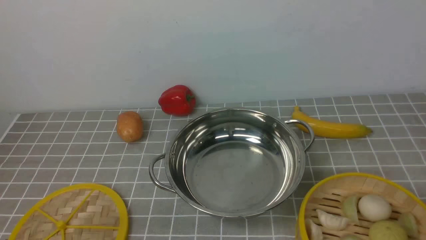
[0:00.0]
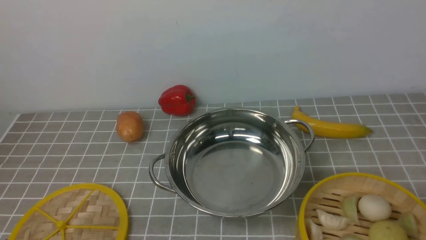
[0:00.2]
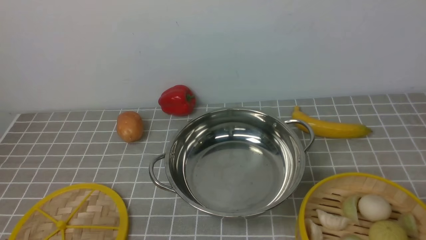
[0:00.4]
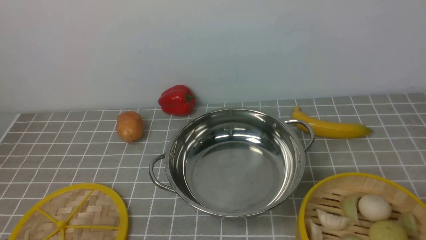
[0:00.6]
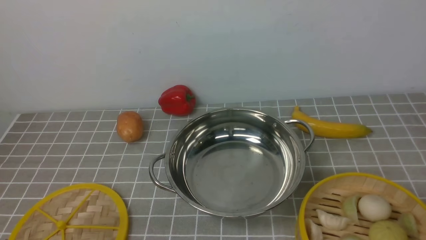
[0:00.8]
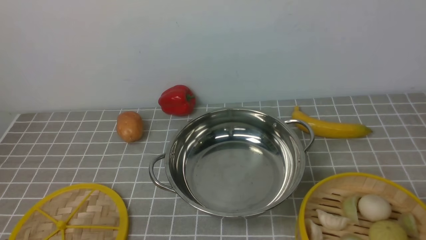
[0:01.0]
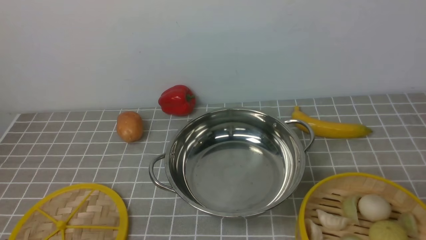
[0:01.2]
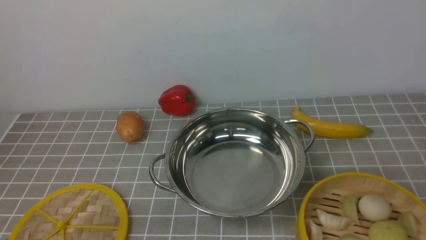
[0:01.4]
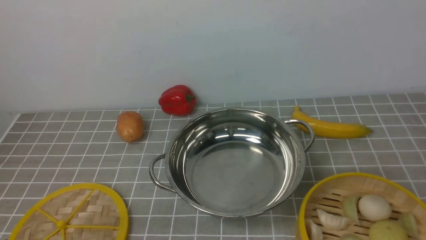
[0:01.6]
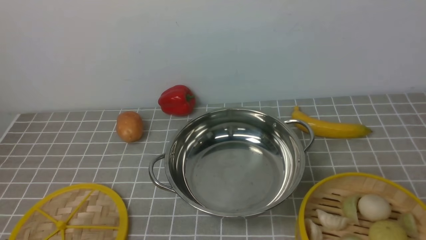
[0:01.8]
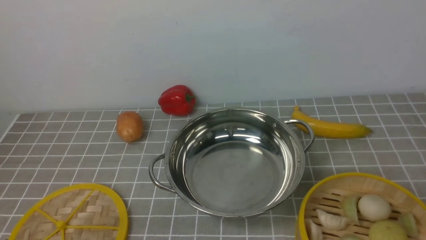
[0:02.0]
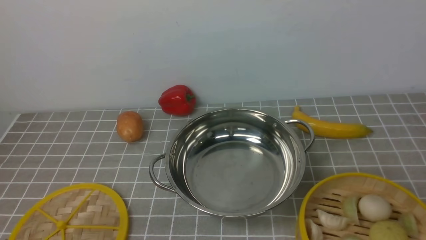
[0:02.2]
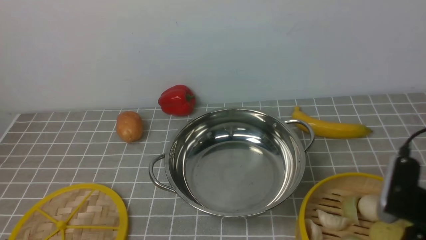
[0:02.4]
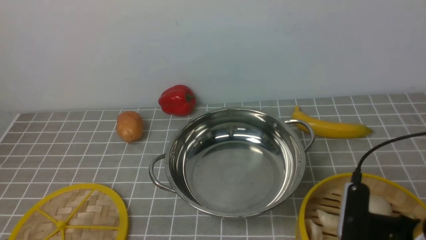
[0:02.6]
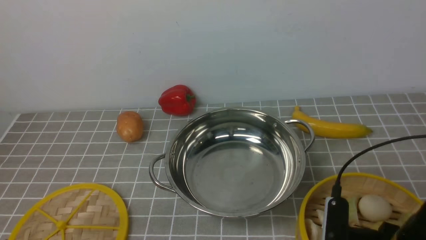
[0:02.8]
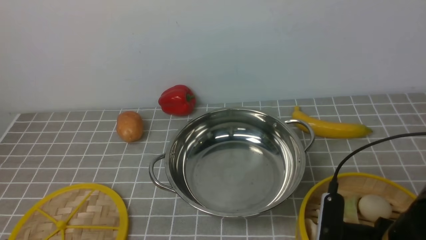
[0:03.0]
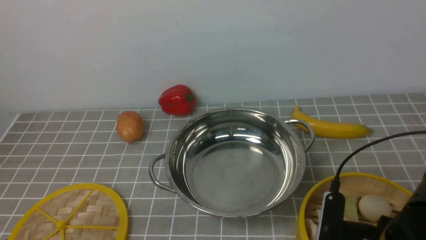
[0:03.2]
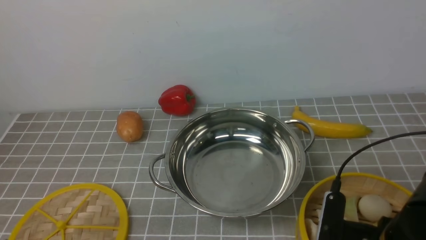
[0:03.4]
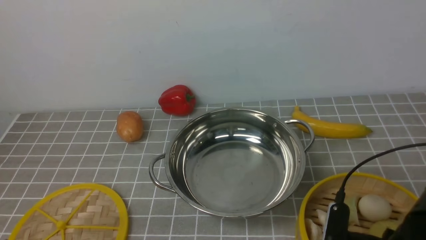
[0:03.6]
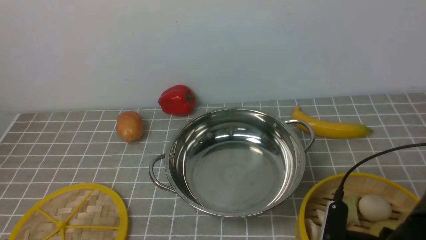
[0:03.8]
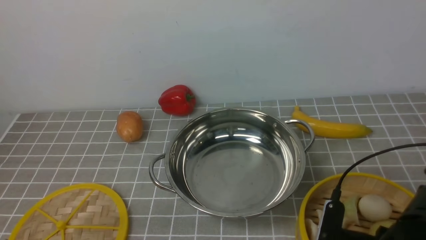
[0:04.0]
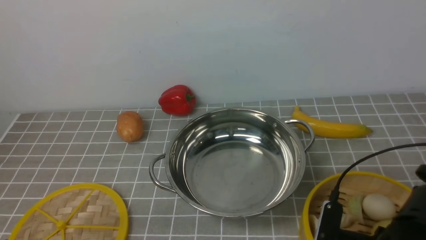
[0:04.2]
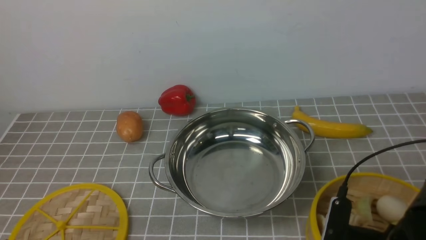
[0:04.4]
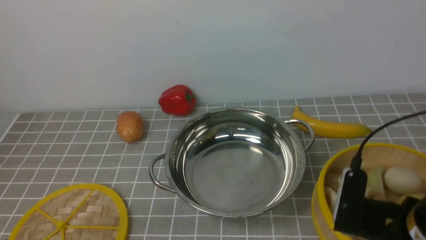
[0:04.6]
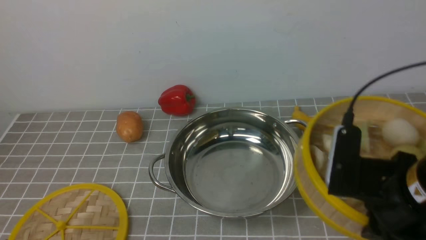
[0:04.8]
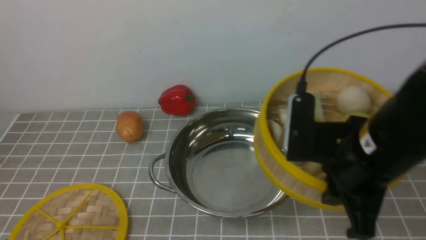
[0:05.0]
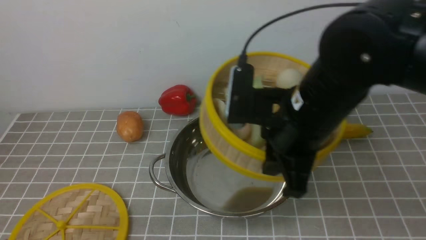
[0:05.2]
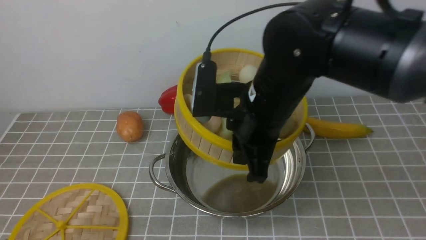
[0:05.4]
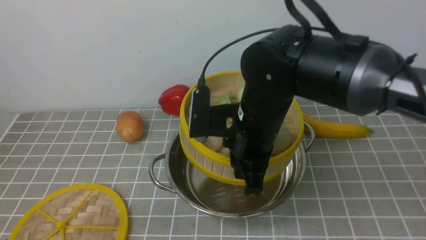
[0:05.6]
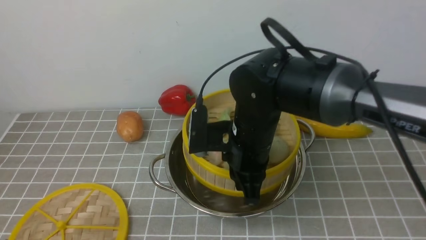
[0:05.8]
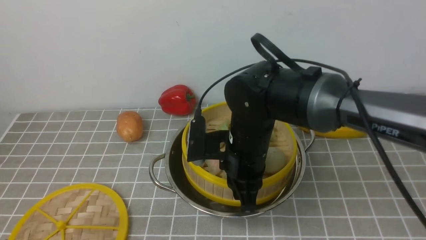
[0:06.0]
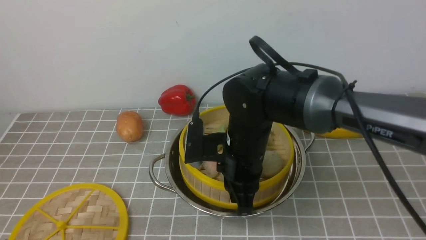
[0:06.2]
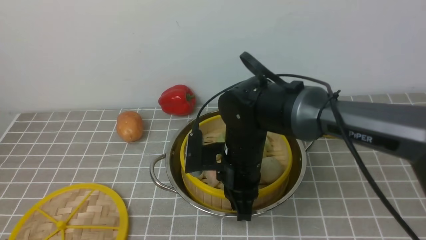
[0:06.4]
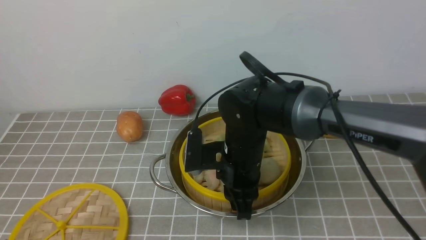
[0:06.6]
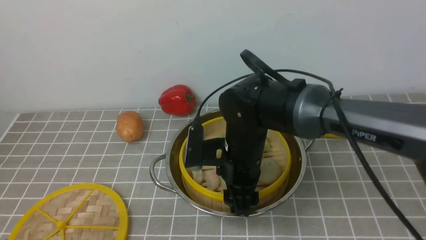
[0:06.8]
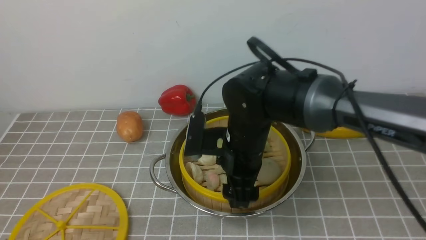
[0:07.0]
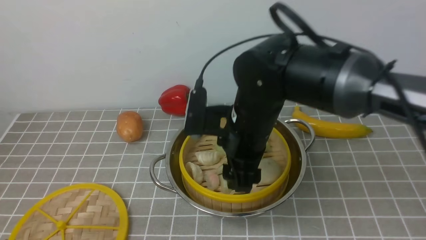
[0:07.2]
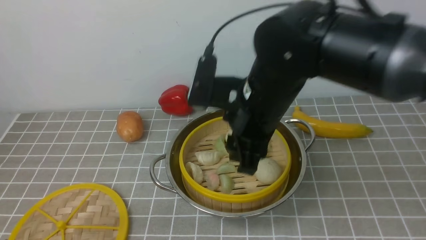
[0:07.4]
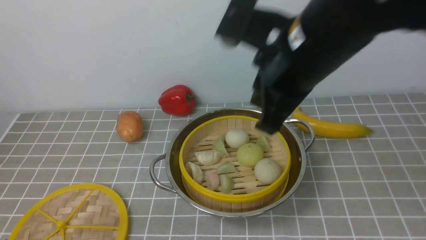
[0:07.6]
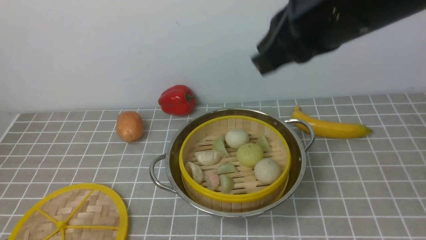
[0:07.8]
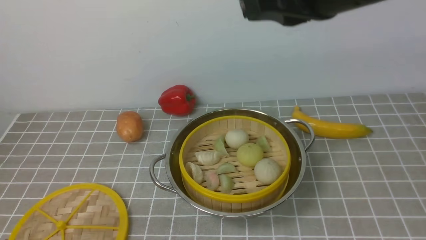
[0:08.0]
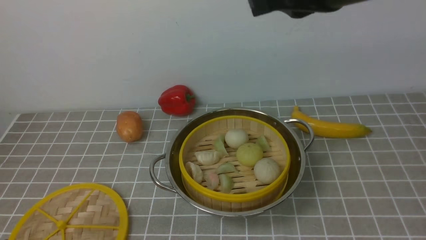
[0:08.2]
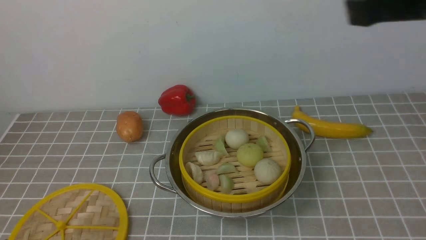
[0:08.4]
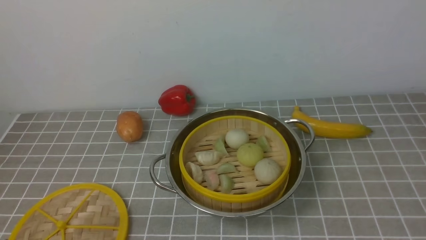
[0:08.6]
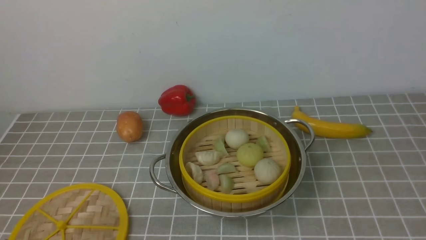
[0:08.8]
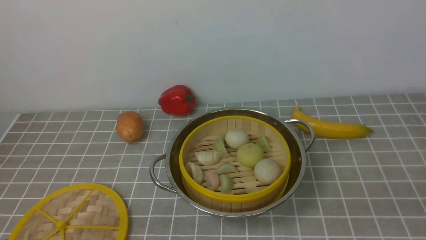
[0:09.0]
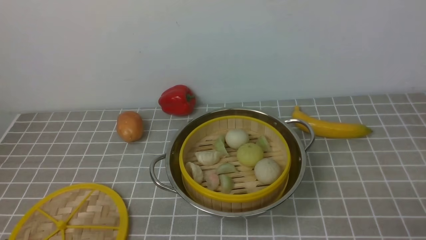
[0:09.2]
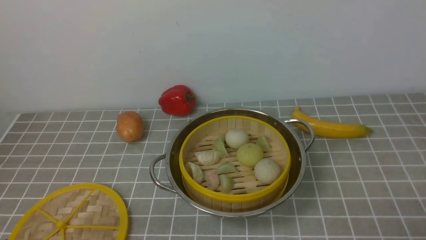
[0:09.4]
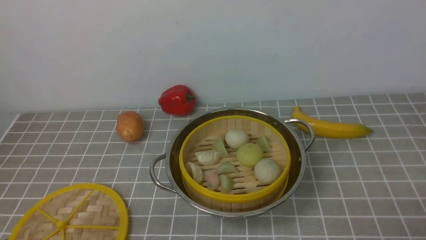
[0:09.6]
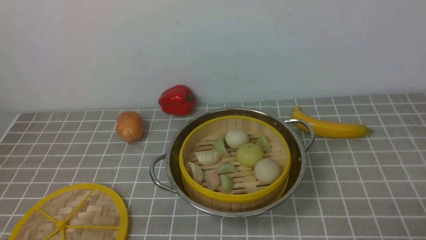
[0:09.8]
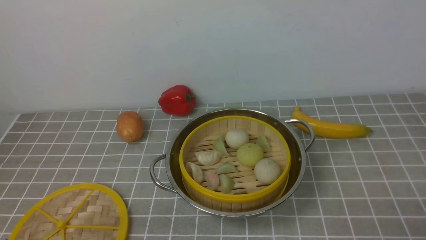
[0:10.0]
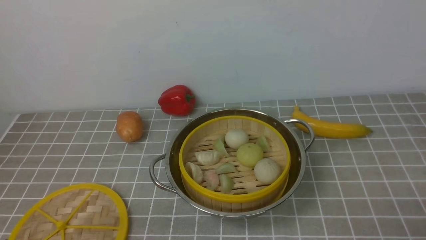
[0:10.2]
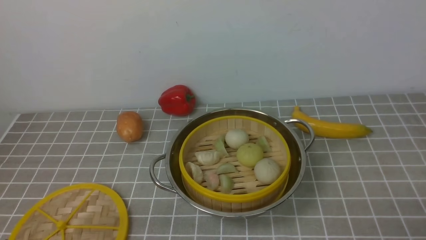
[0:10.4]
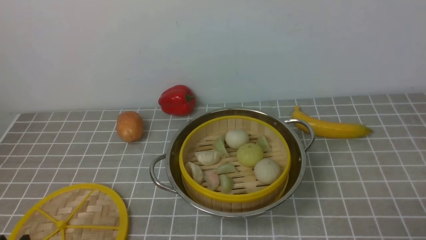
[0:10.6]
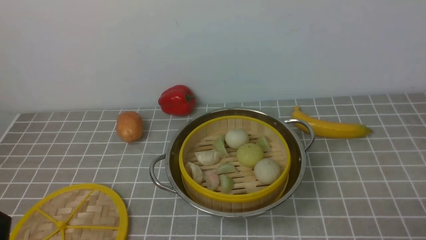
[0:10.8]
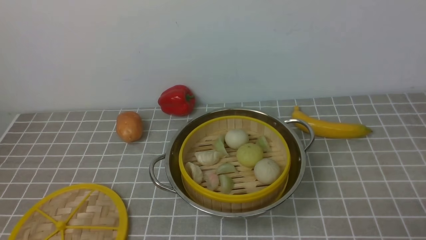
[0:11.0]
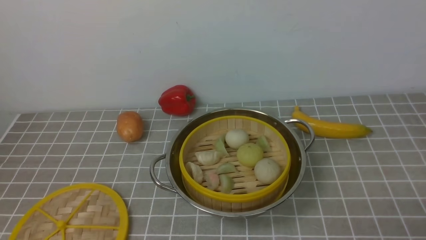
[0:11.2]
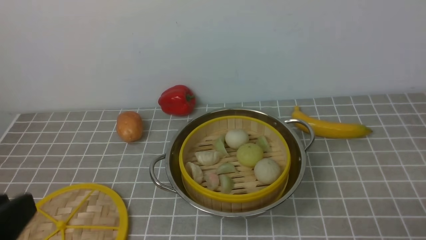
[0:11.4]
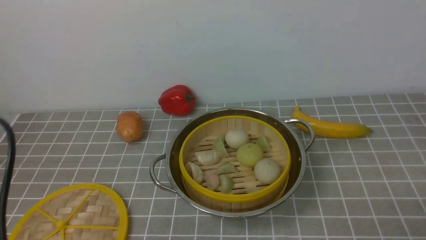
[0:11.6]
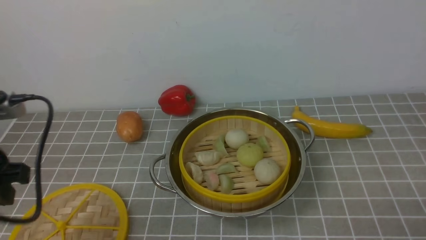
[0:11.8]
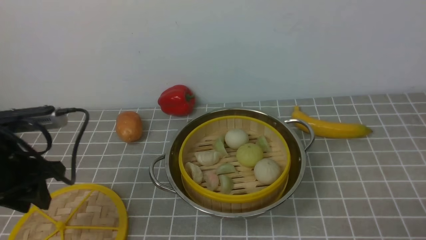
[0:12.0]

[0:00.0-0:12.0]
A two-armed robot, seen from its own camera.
Task of the whole recording: place the steamer in the pot on the grey tablecloth, and put the lid on the steamer.
Step, 0:00.0 to 0:04.4: use the right arm to lift the steamer closest to it.
Step, 0:04.6 to 0:07.0: use the right arm to put the steamer into the iron steamer pot in the middle.
0:01.6 to 0:03.0: The right gripper shifts some 20 cm forward, to the left and downward.
0:03.0 to 0:04.4: The right gripper closes.
0:04.4 to 0:06.0: The right gripper moves to the left and forward, some 20 cm.
0:06.0 to 0:07.6: The right gripper heads upward, covering some 15 cm, and opens, then closes again.
0:07.6 to 0:09.0: The right gripper goes roughly 35 cm to the right, backward and downward.
0:10.4 to 0:12.0: The left gripper goes roughly 20 cm forward and upward.

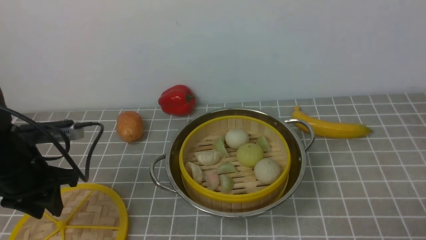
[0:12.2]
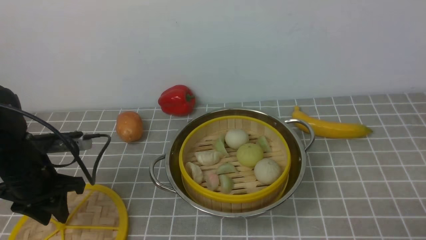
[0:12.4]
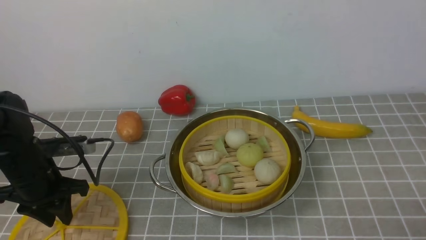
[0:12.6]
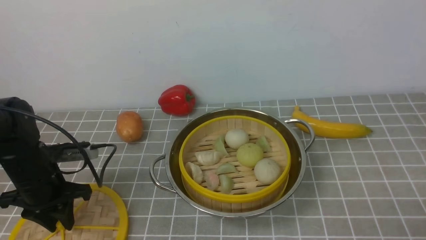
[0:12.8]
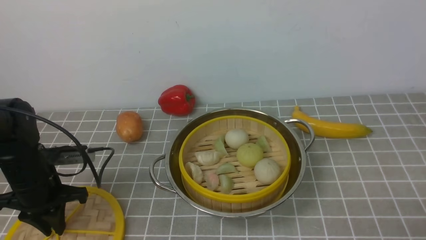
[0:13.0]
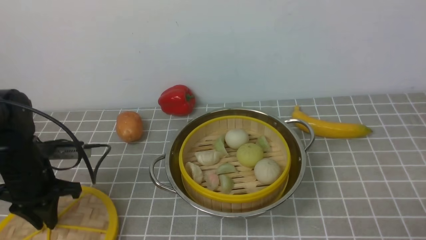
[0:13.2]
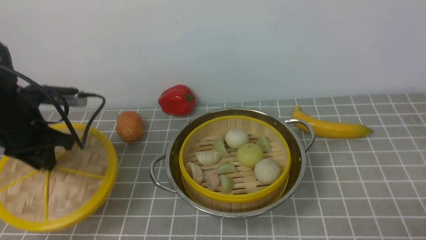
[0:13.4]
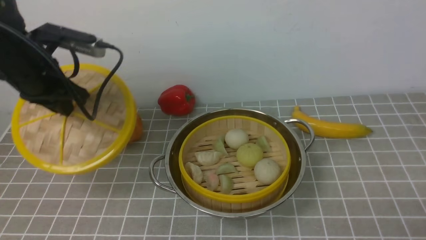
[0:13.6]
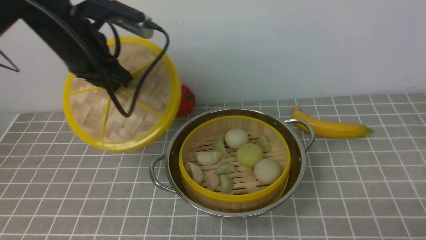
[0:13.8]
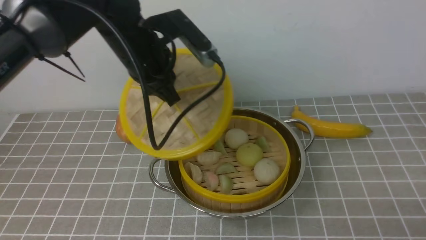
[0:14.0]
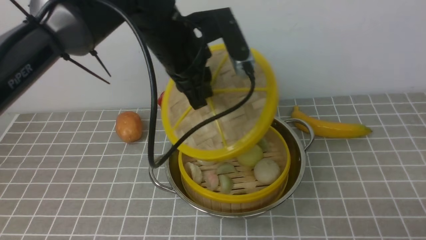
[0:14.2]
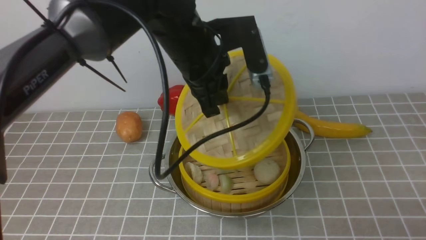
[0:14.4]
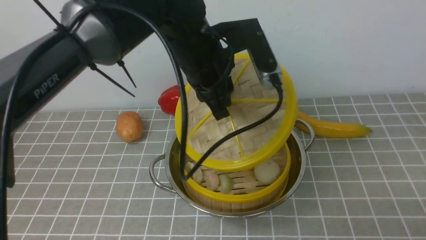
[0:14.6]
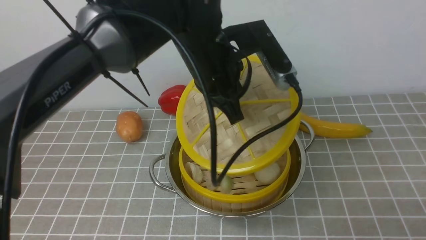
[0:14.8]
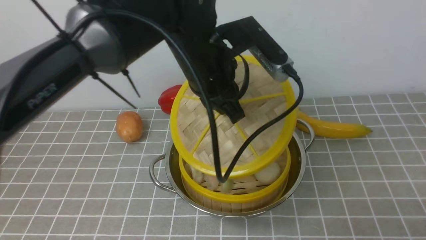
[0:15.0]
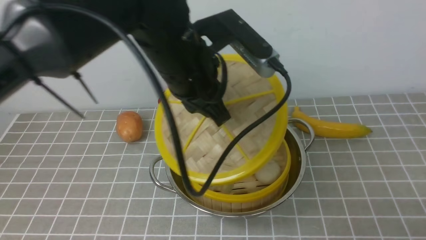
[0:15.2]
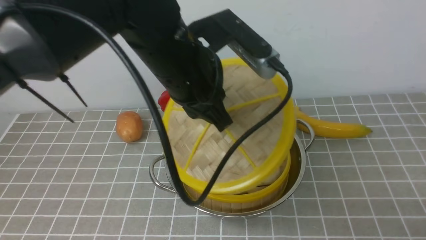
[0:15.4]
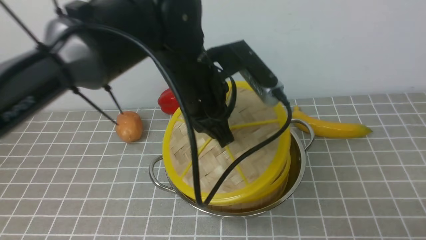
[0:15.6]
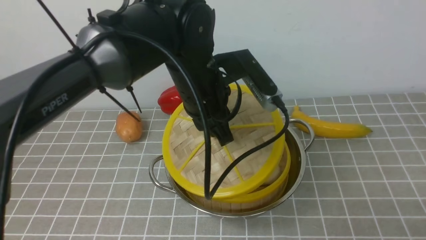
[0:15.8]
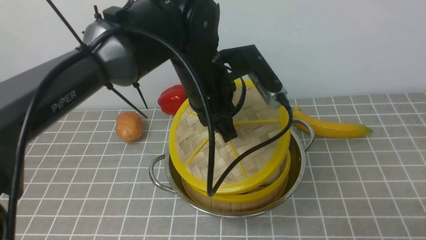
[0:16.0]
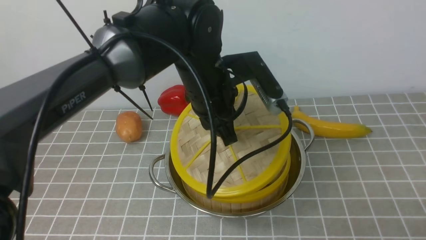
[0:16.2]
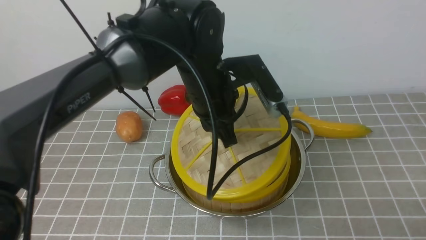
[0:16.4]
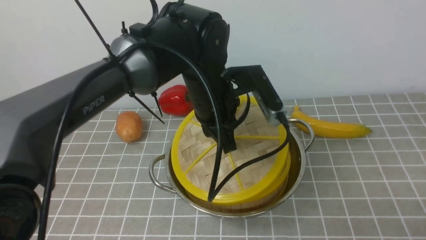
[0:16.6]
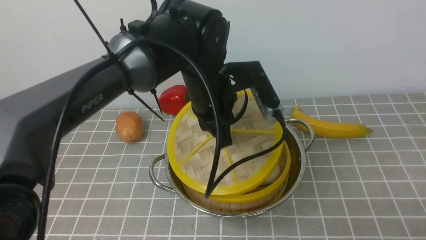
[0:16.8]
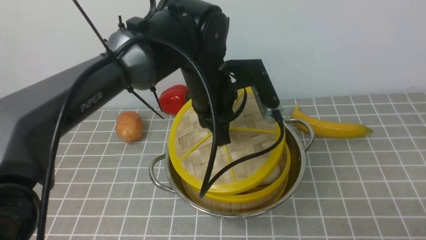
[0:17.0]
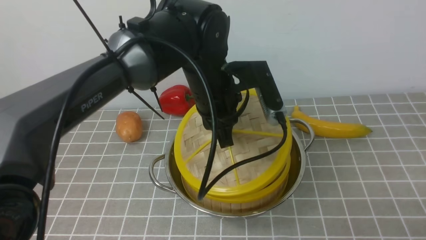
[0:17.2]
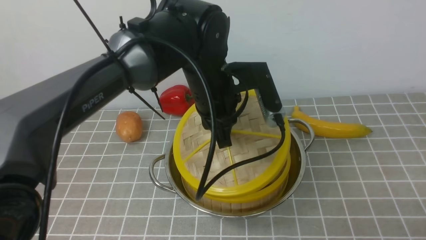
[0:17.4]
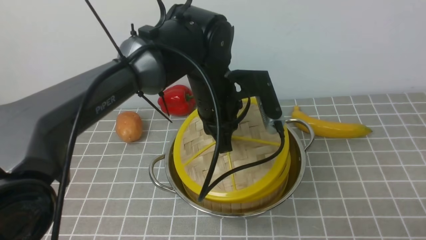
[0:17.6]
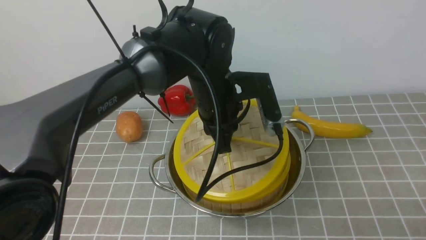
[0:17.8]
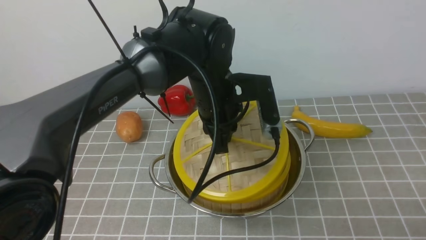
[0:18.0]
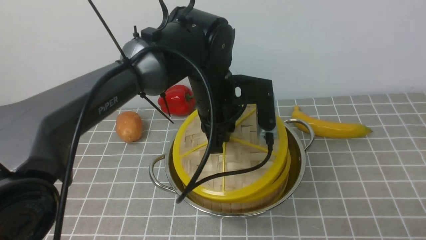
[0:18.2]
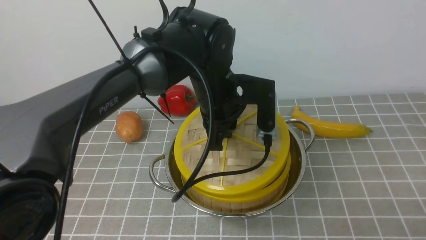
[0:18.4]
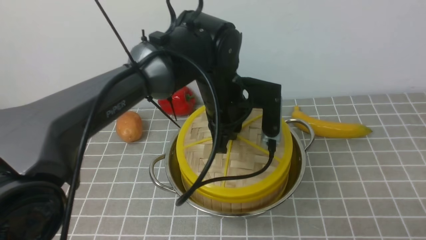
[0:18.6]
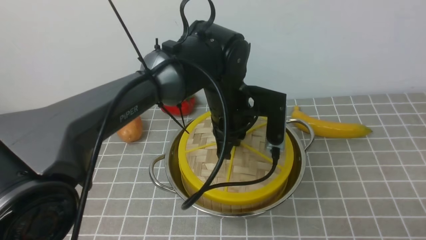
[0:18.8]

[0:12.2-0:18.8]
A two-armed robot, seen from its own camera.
Task of the whole recording: place the steamer in the pot on the grey tablecloth, and put the lid on the steamer.
0:12.2 to 0:13.8: The left gripper is displaced to the right, upward and forward by roughly 20 cm, and closes.
0:13.8 to 0:15.4: The left gripper moves to the right and backward, roughly 15 cm.
0:15.4 to 0:17.2: The left gripper is displaced downward by about 5 cm.
